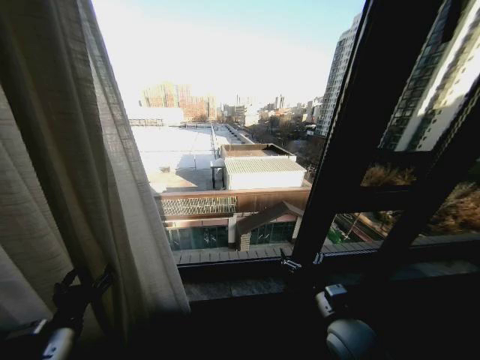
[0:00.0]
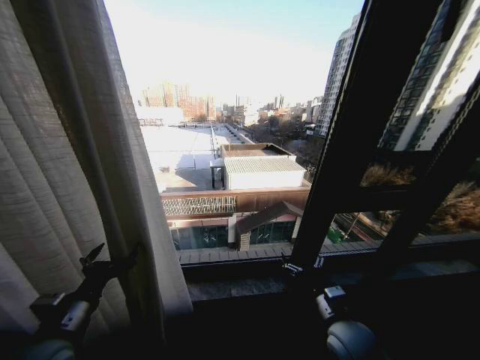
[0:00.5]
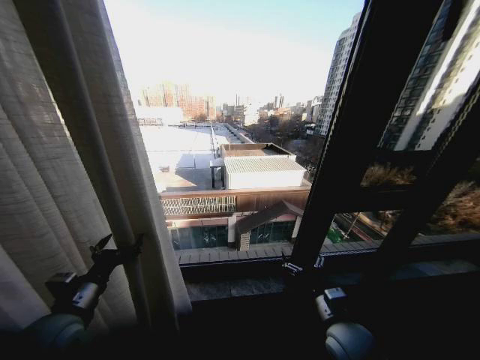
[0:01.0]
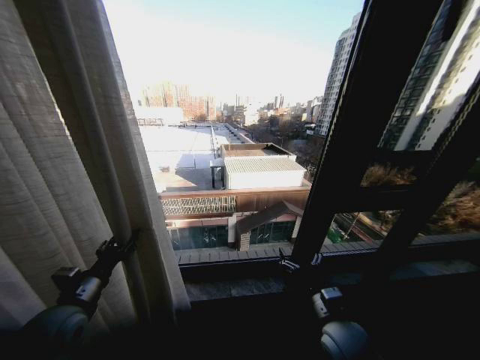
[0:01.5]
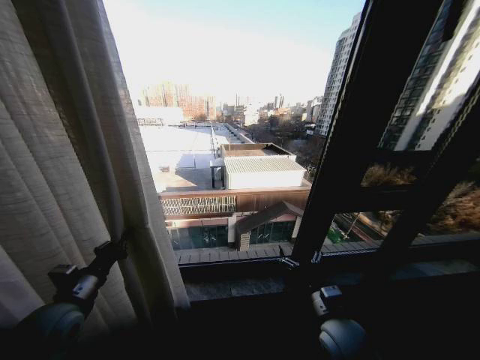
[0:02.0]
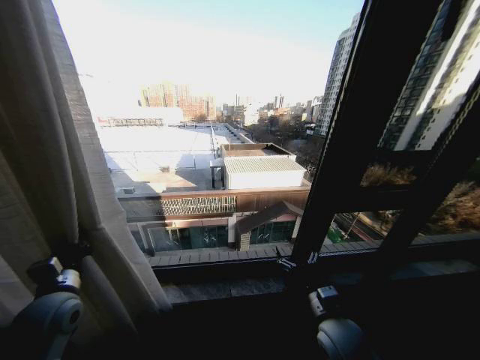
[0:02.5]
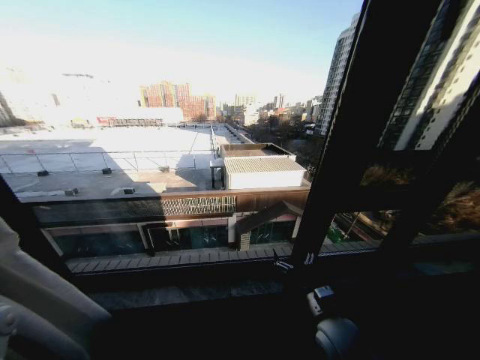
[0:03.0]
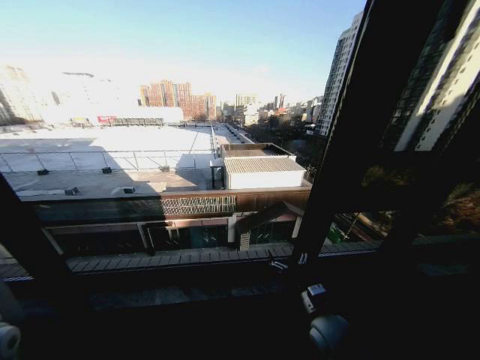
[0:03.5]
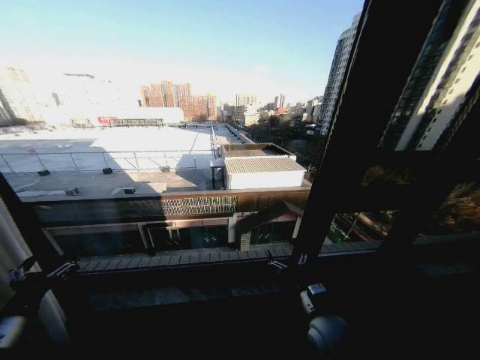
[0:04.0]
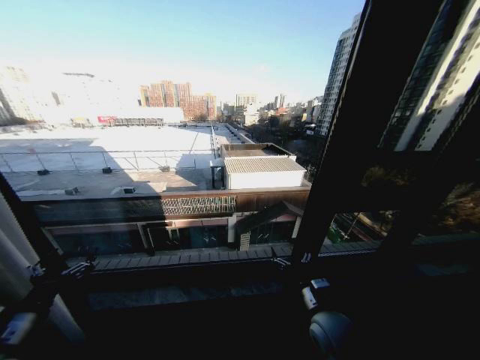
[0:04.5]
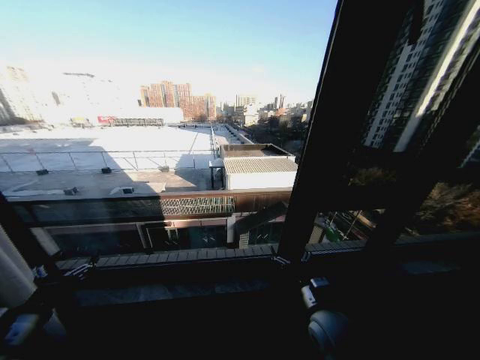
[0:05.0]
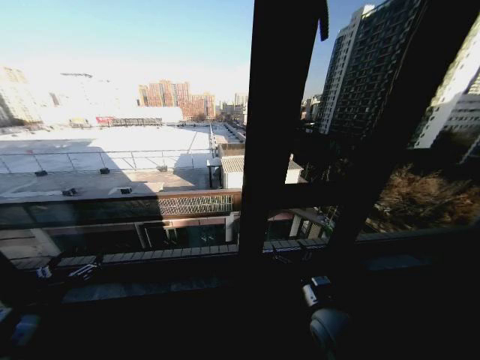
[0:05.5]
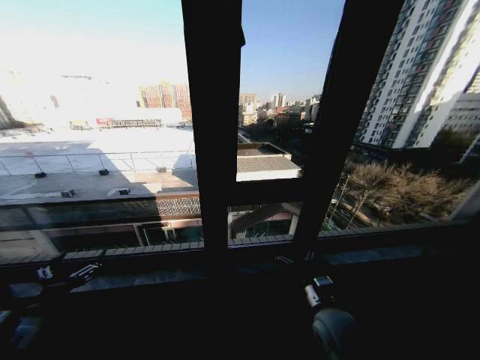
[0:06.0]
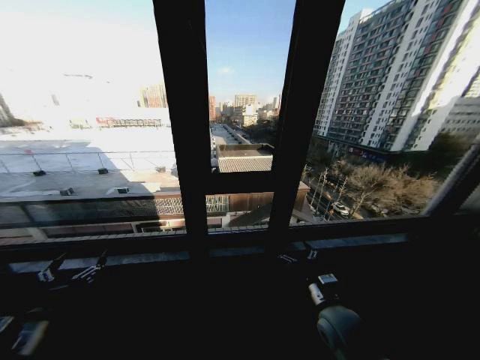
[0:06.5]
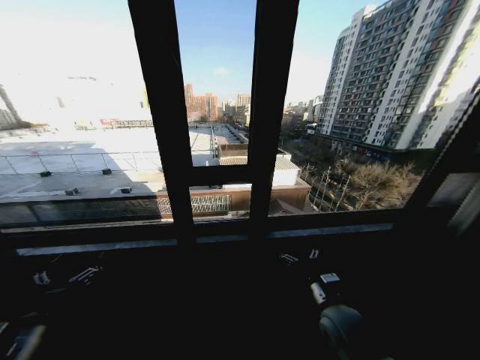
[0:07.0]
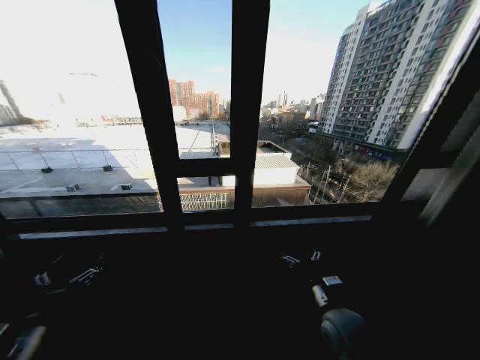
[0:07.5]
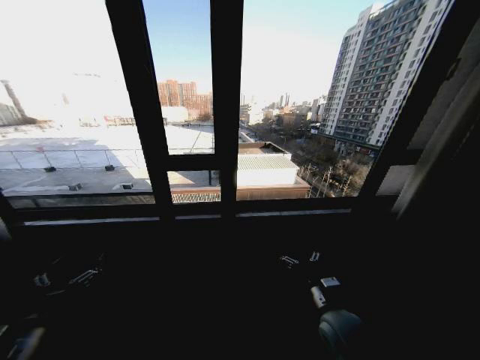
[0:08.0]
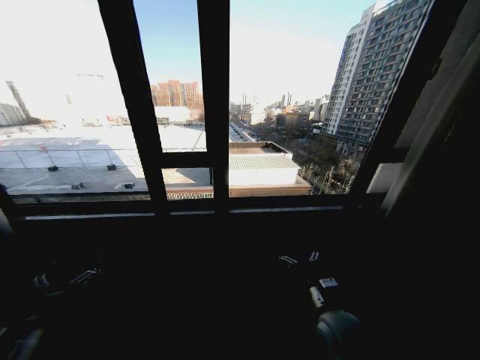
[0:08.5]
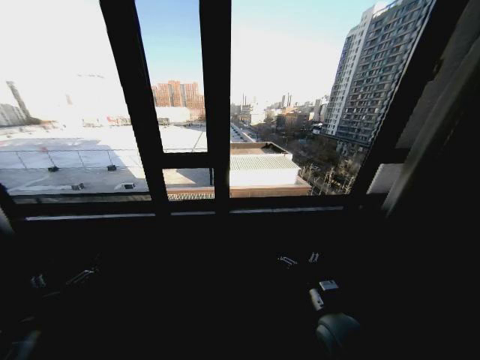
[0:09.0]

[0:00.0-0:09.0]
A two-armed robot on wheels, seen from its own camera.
Task of the whole recording: Open the curtains by pulling them apart, changing their state from closed to fully open.
0:00.0 to 0:02.0: The left gripper heads forward and to the left, covering some 10 cm, and closes up.
0:02.0 to 0:04.5: The left gripper is displaced backward and to the left by some 10 cm, and opens its fingers.
0:04.5 to 0:07.0: The left gripper shifts by about 5 cm.

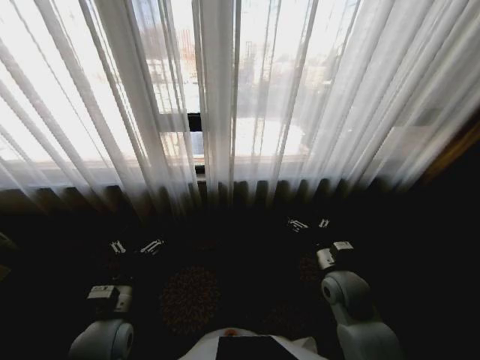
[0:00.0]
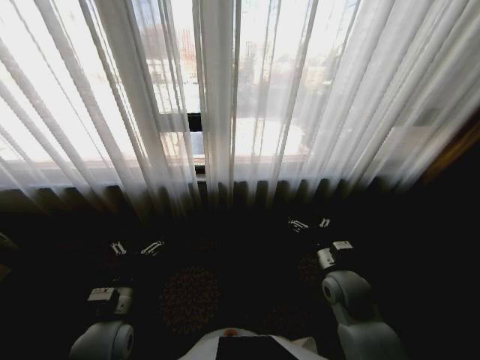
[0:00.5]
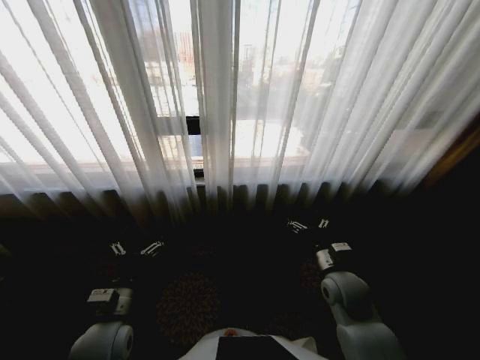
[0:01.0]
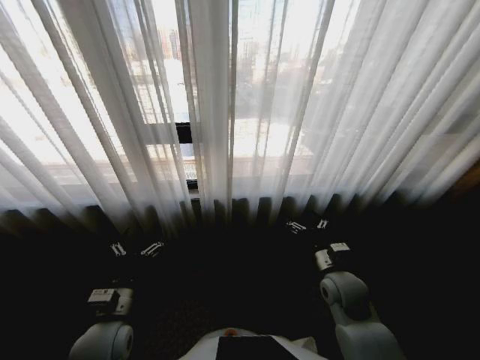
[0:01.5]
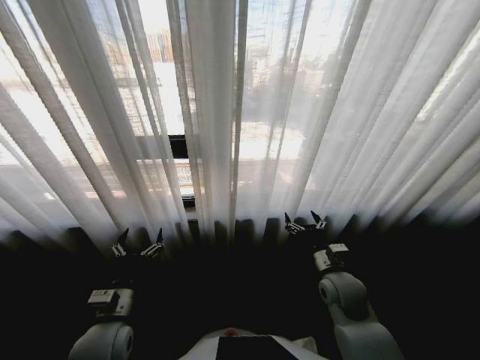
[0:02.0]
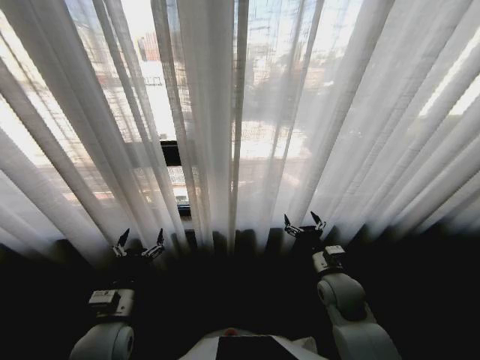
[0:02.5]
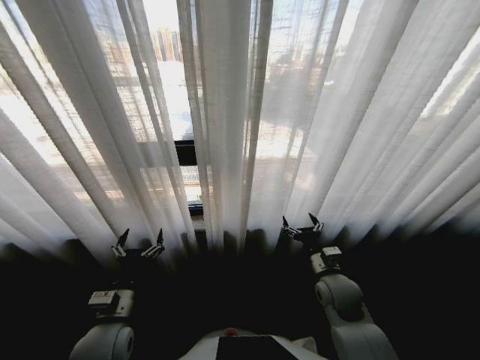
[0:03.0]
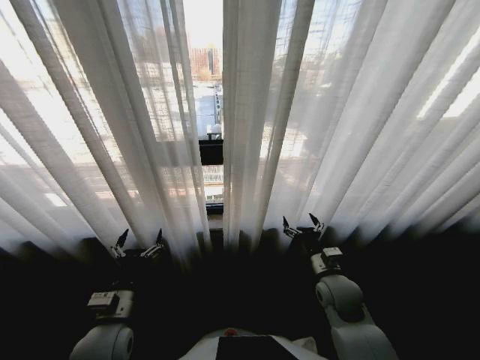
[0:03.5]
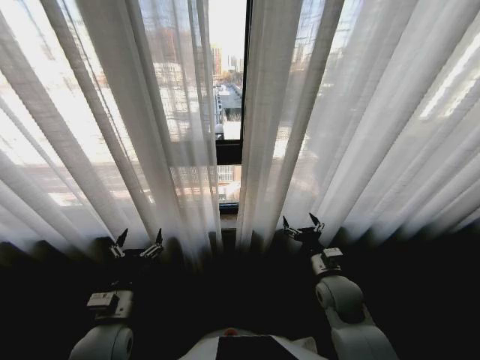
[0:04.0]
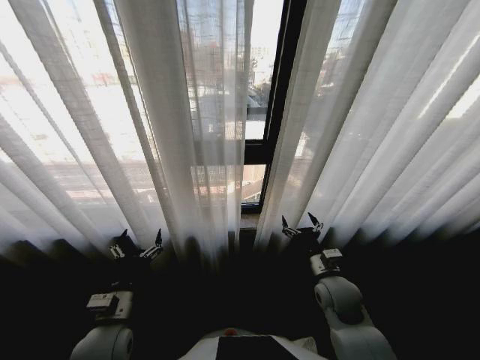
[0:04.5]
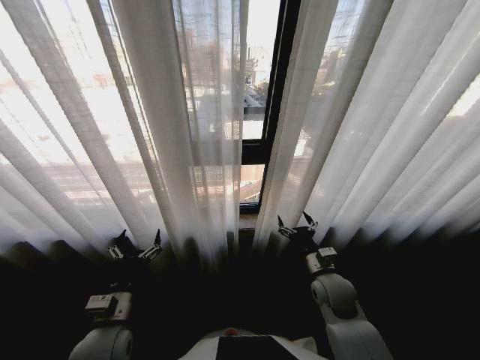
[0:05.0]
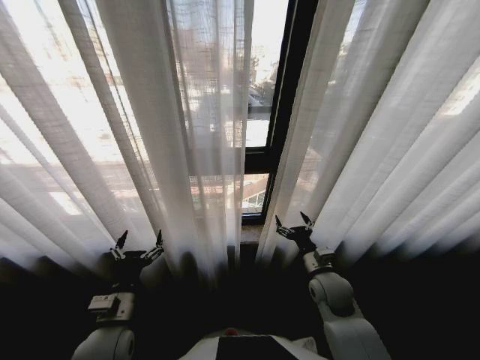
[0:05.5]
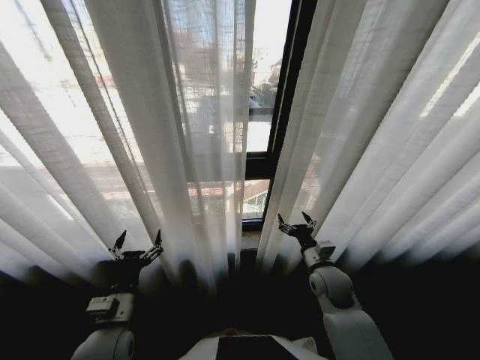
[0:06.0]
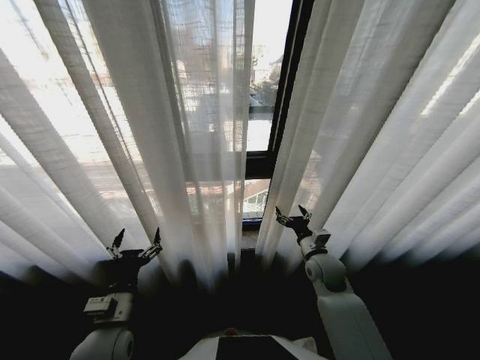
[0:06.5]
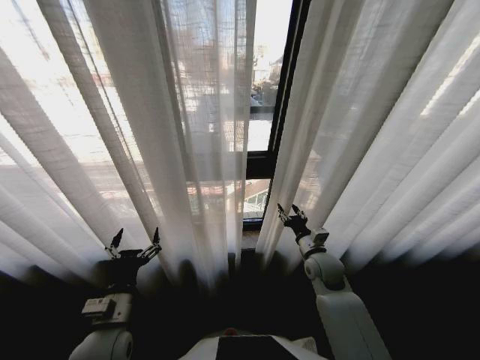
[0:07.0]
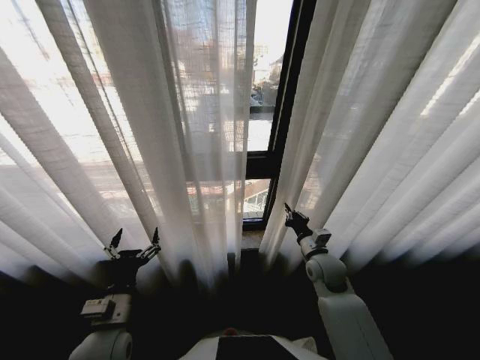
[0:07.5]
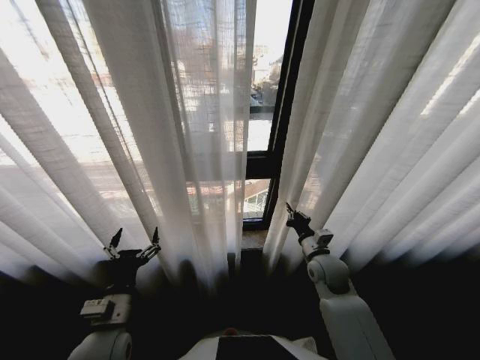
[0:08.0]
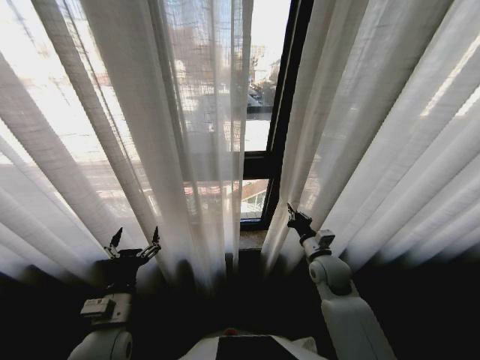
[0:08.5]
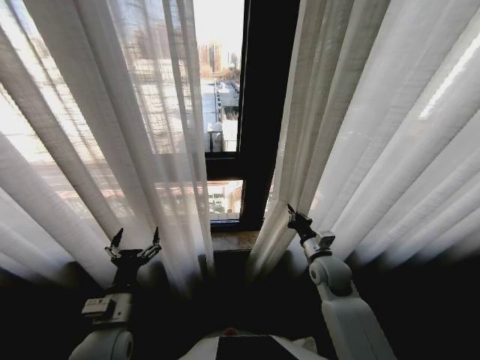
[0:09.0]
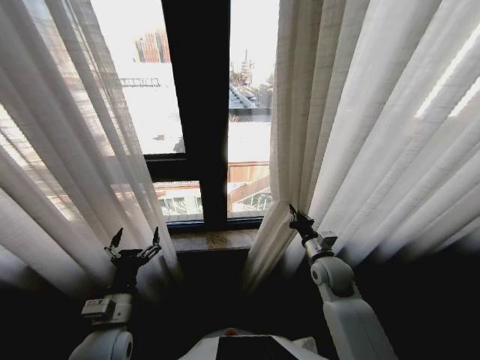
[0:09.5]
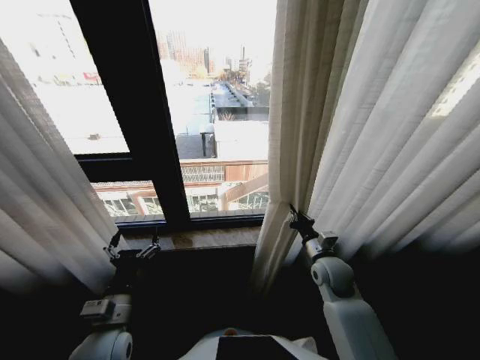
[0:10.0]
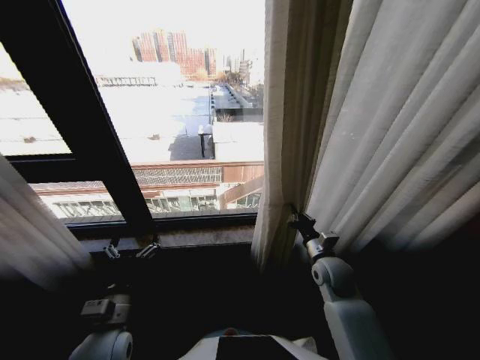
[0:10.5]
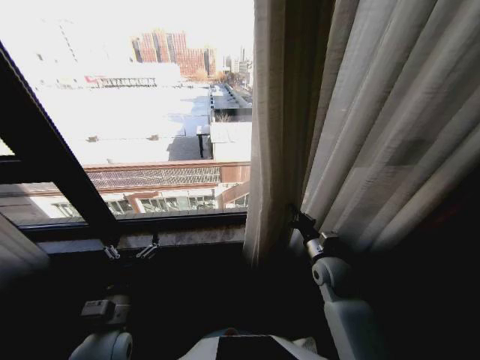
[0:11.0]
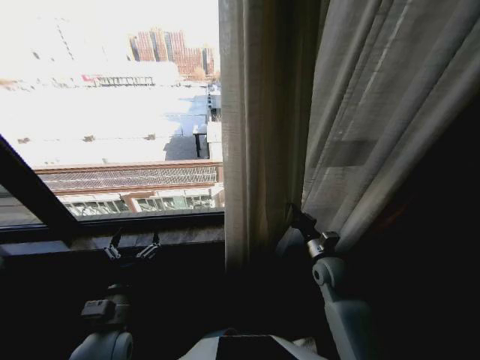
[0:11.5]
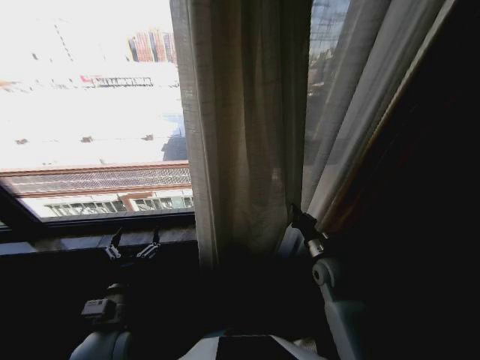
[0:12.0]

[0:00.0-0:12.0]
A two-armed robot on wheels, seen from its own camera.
Task of the whole recording: Open the curtains by pulling them apart, changing their state from closed to fully open.
0:06.0 to 0:08.0: The right gripper closes up.

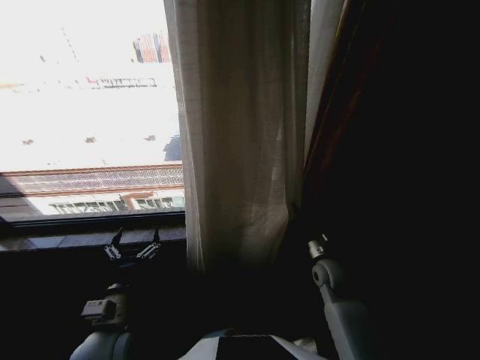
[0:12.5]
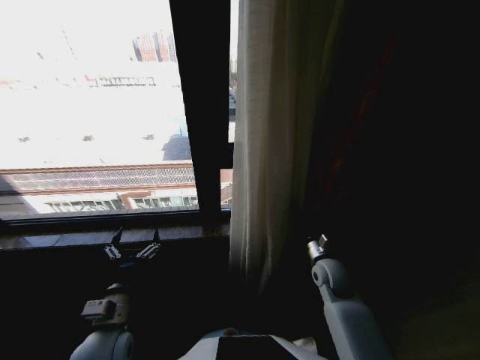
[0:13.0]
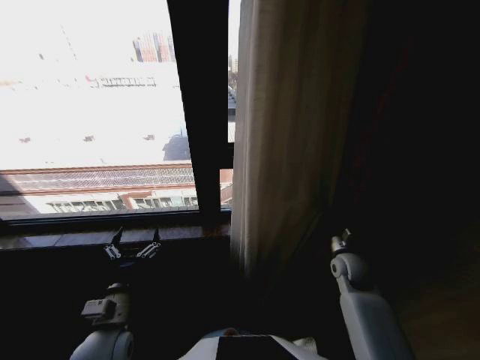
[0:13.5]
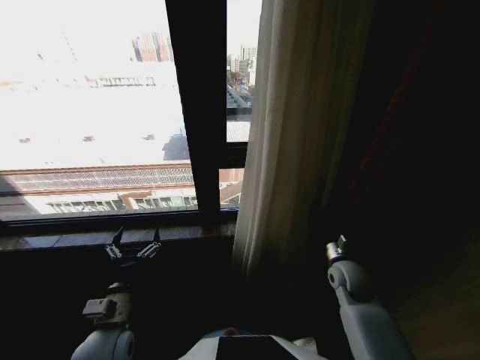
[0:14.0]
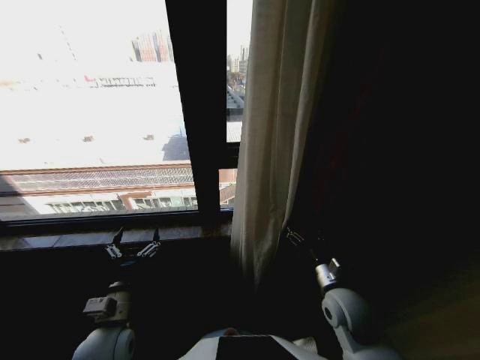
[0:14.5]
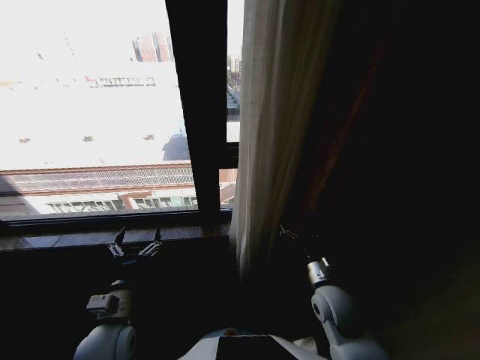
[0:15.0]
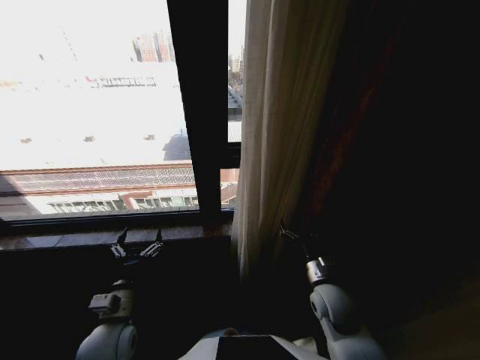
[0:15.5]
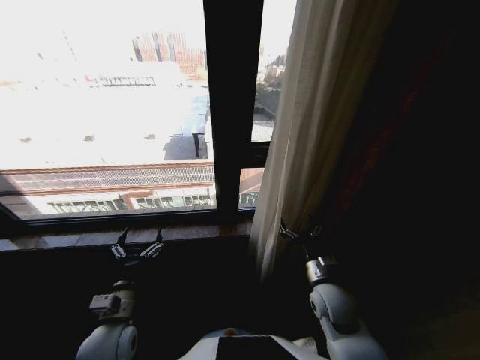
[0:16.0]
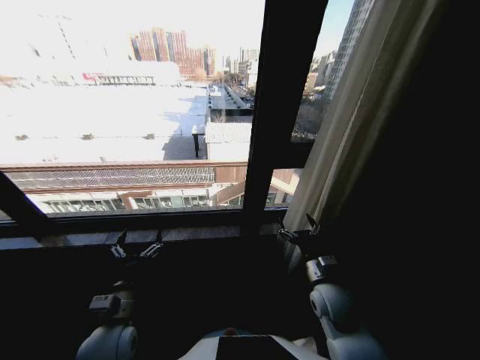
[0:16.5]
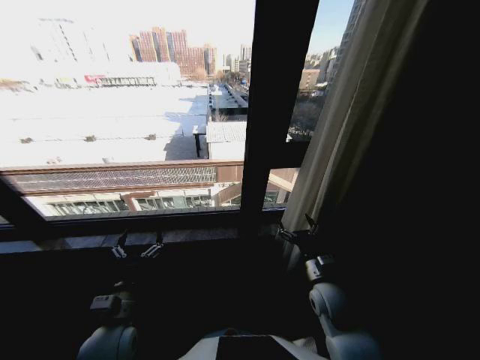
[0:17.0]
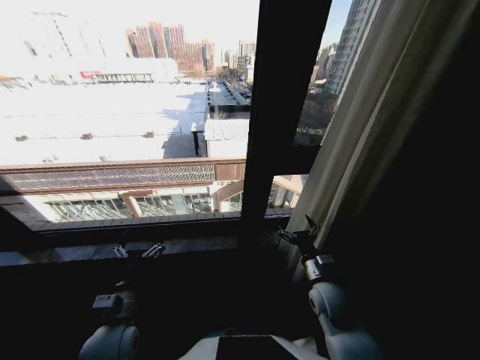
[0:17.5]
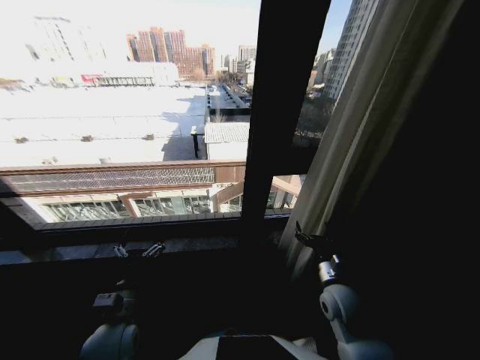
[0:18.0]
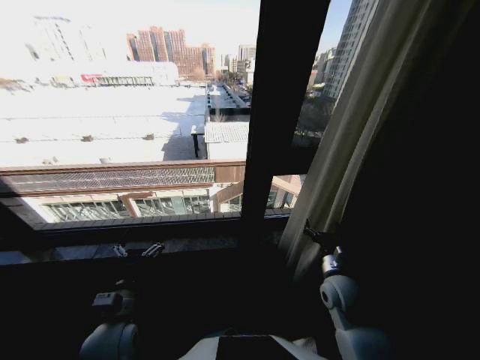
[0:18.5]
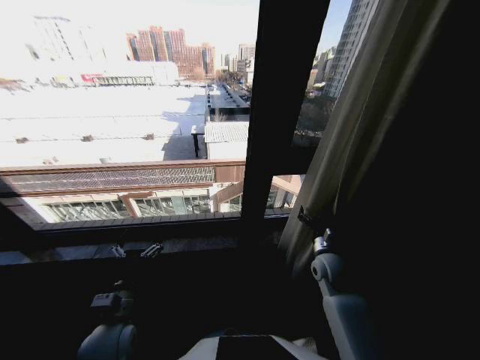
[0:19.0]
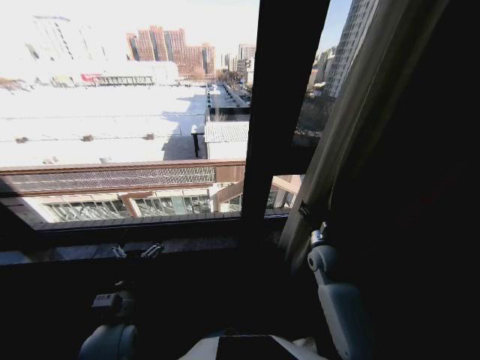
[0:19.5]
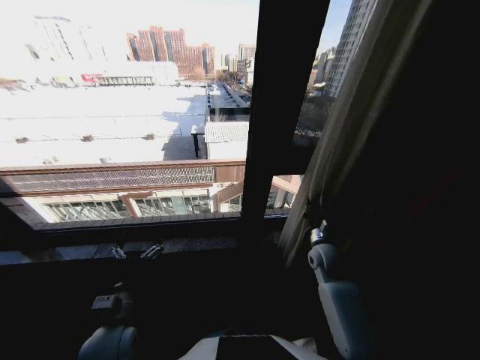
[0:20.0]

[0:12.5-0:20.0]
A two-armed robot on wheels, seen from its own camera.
Task of the whole recording: Open the curtains by pulling them apart, changing their state from closed to fully open.
0:12.5 to 0:14.5: The right gripper travels backward by approximately 10 cm, and opens its fingers.
0:16.5 to 0:18.0: There are only small adjustments of the grippers.
0:18.0 to 0:20.0: The right gripper goes some 10 cm forward, and closes its fingers.
